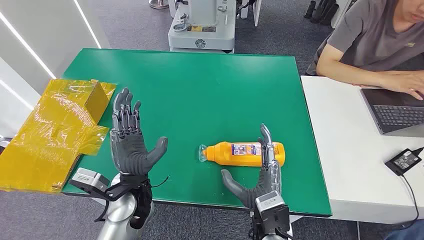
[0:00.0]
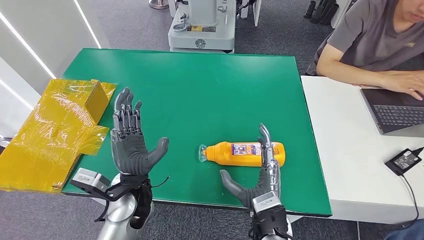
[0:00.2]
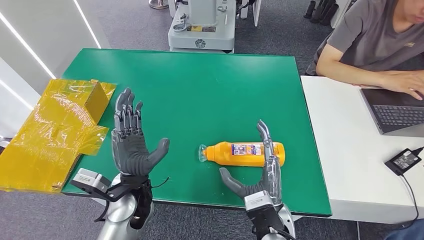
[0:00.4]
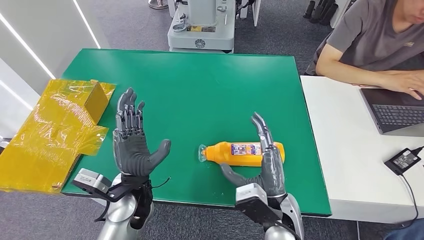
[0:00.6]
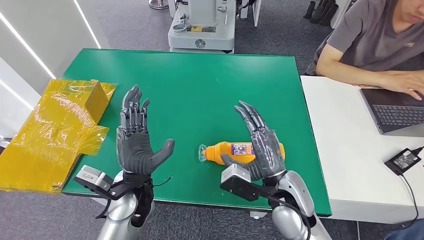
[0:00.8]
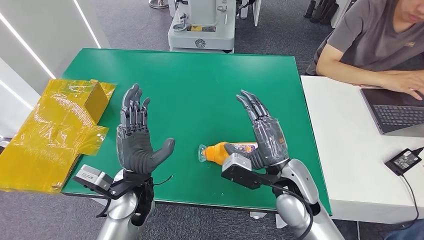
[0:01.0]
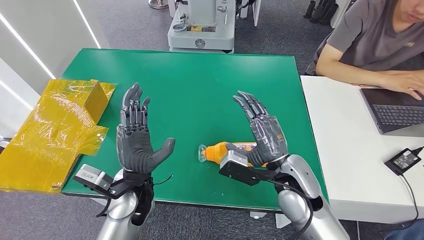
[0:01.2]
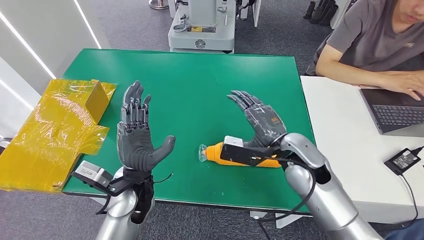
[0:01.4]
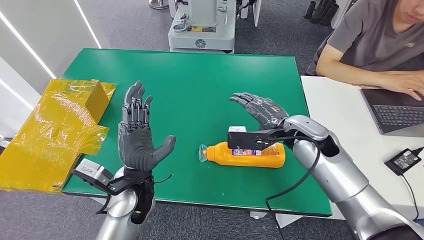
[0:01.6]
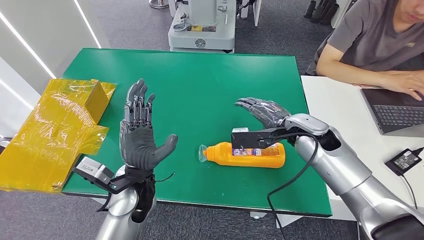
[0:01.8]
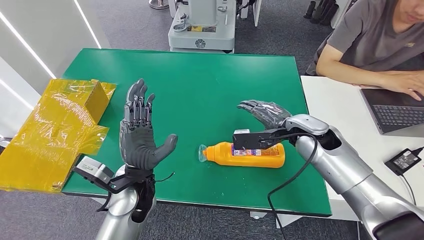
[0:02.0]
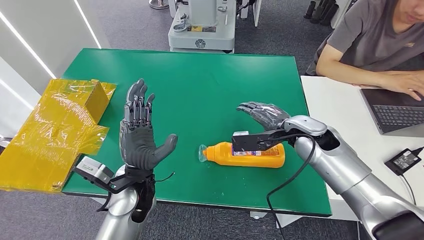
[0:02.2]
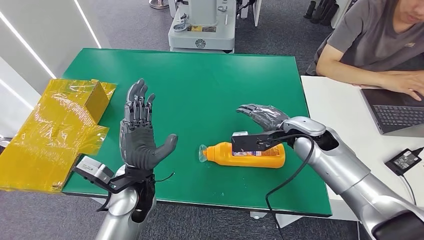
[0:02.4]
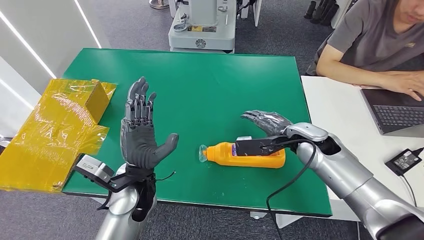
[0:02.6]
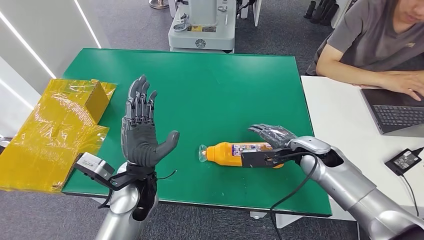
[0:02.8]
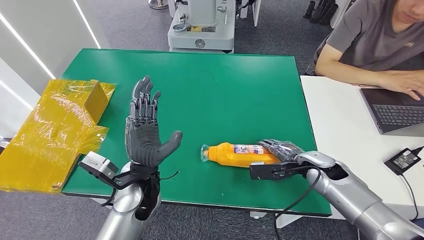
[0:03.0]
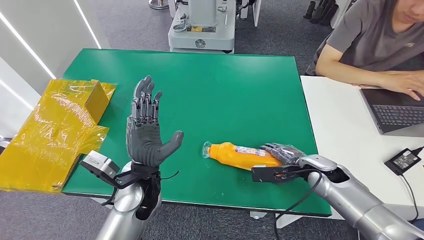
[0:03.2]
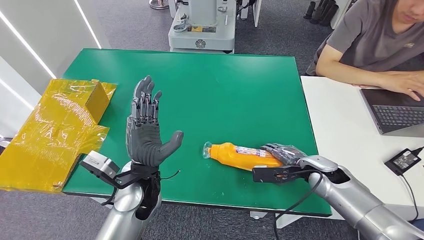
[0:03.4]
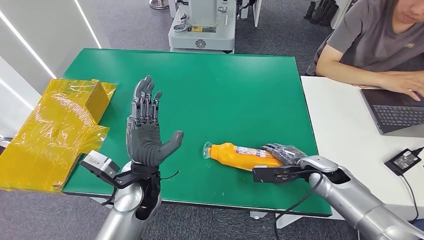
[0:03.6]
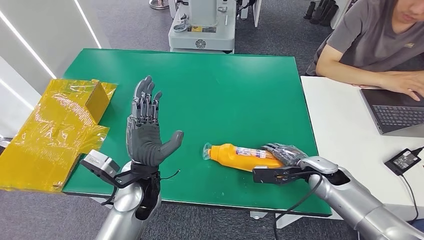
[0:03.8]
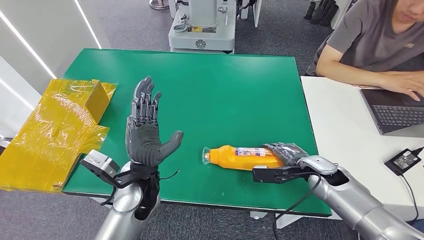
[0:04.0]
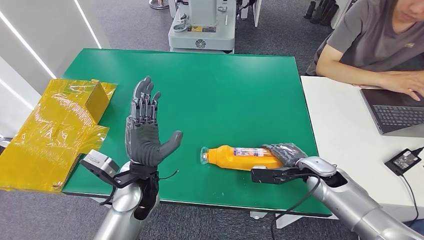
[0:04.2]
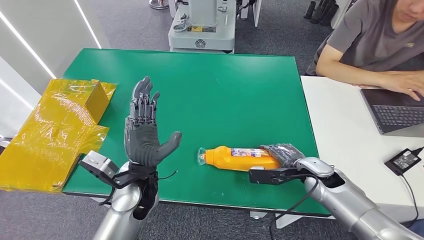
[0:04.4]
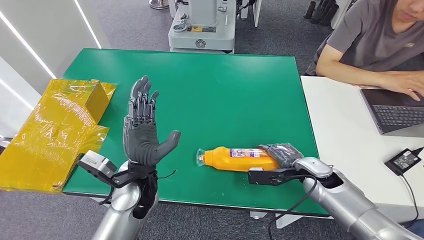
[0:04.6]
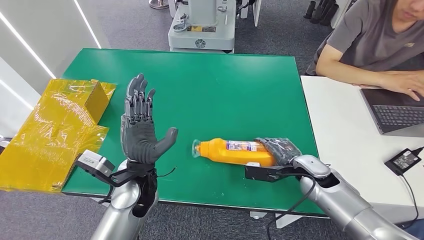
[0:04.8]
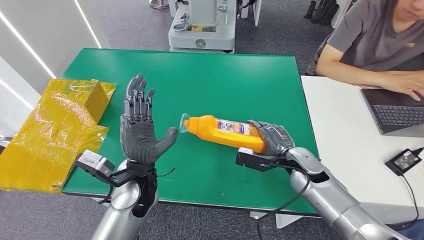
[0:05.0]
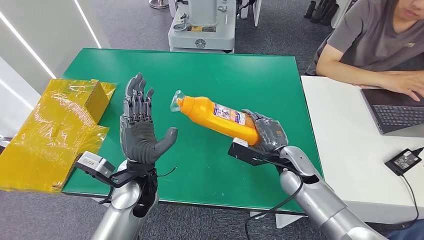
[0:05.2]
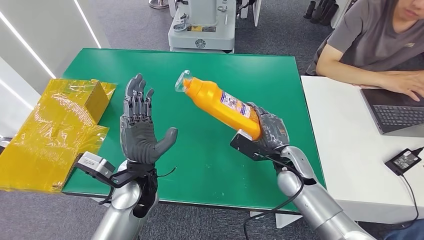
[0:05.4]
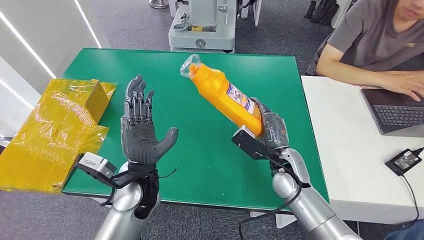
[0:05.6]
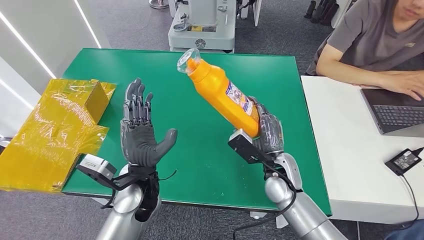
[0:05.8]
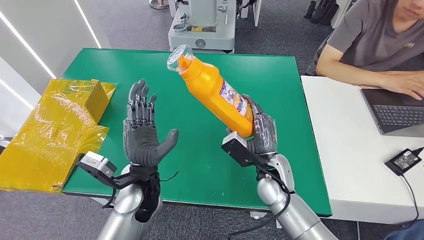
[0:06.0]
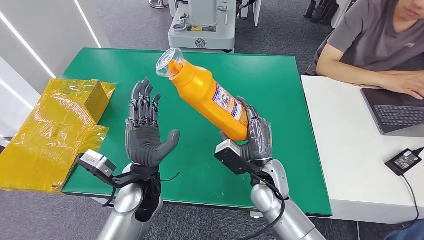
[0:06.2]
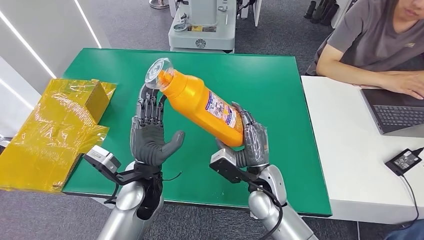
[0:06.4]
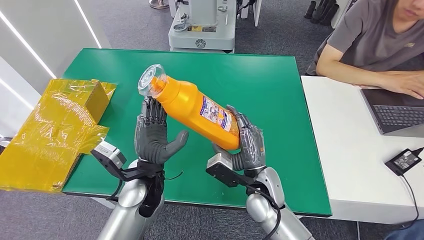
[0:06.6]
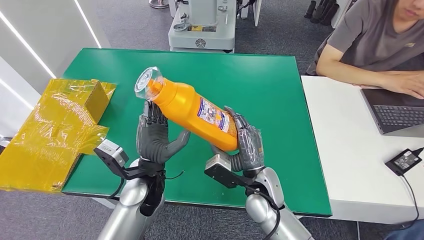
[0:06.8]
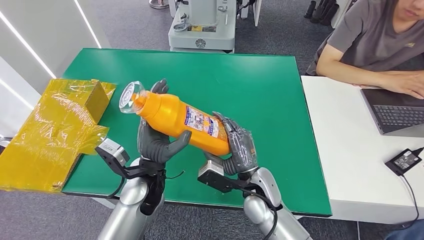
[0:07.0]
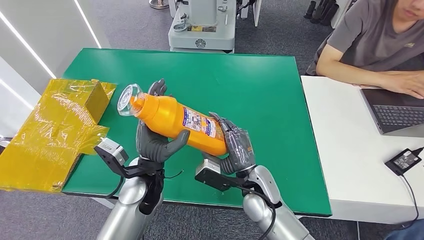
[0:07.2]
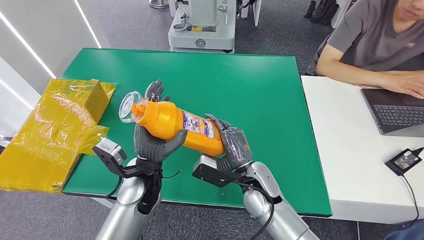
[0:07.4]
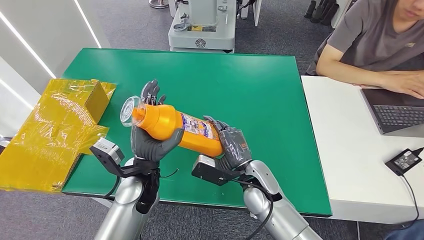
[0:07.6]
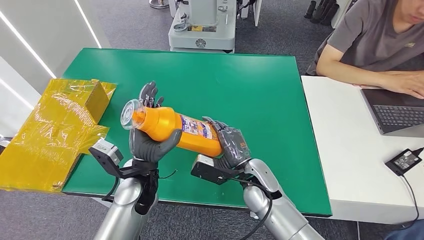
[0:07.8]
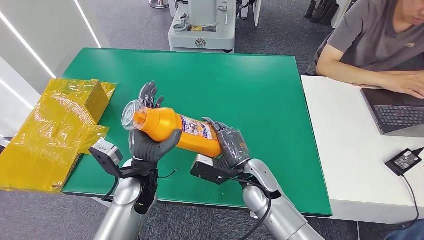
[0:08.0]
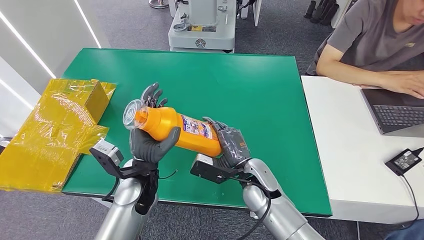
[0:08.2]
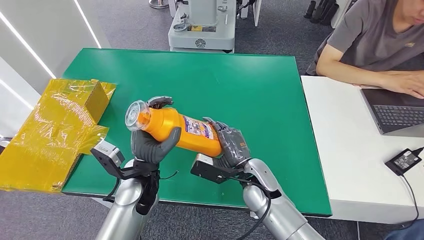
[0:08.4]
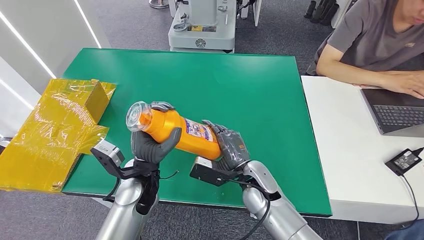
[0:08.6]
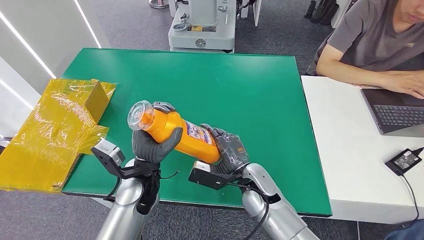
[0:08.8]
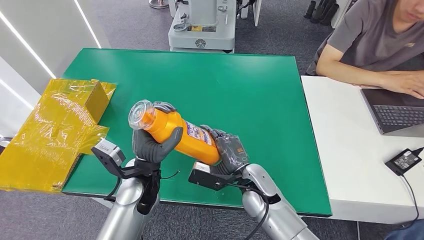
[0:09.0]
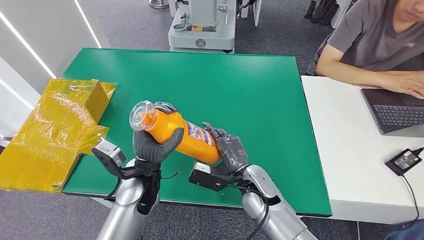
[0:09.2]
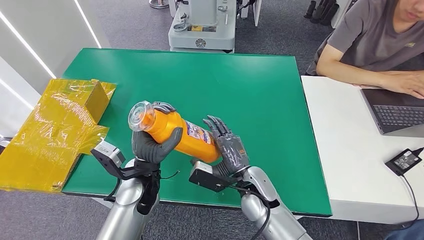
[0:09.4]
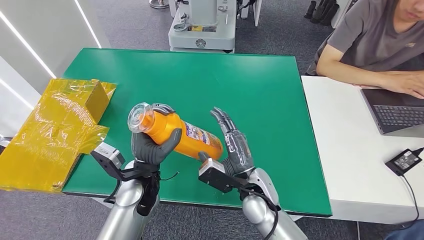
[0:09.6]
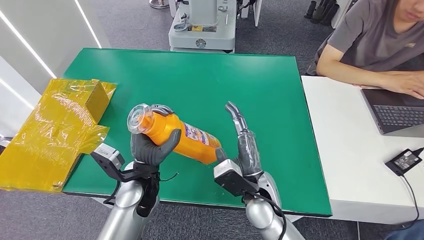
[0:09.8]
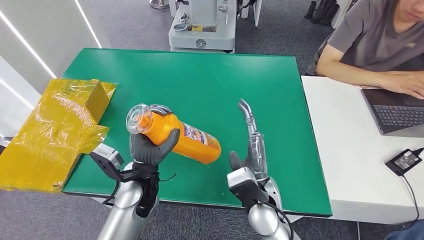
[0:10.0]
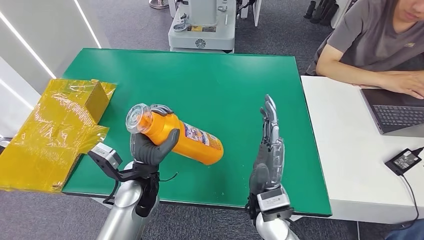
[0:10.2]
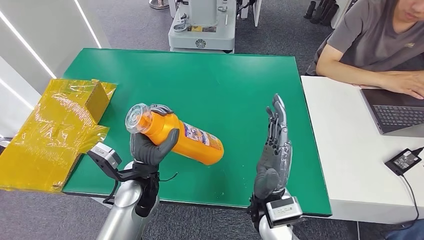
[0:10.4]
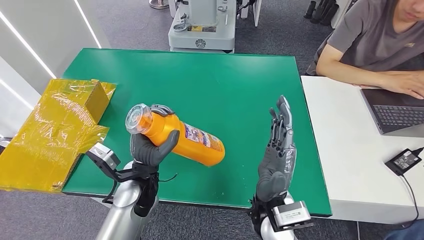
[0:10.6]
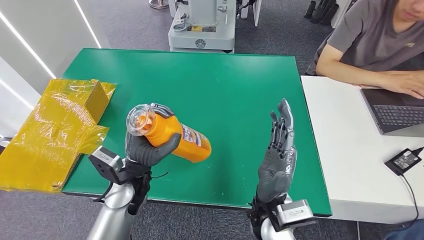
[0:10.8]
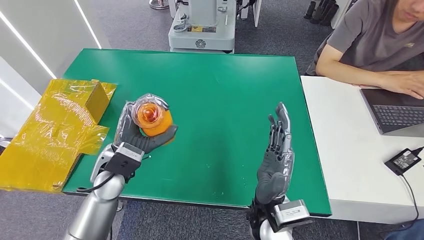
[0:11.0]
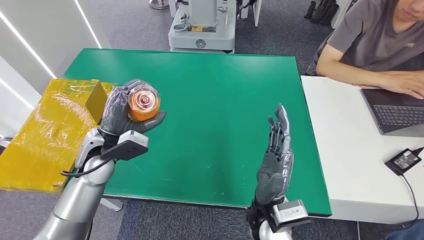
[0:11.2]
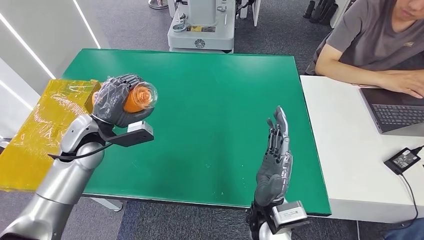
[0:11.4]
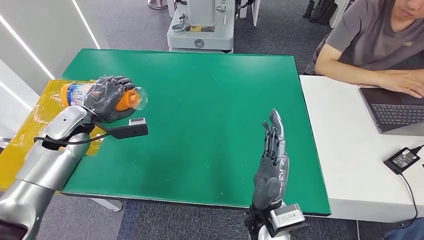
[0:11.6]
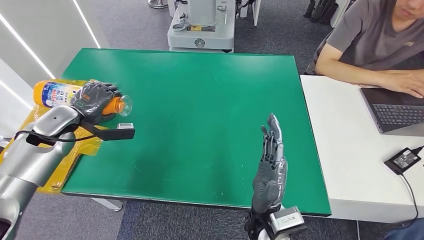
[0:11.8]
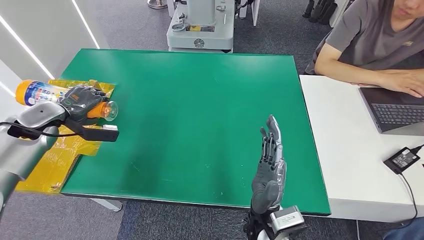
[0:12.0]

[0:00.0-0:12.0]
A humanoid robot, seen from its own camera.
Step, 0:00.0 to 0:05.6: Pick up the bottle from the table.
0:01.6 to 0:03.0: The right hand moves downward and to the right, some 15 cm.
0:03.0 to 0:04.4: The hands stay close to where they were, moving slightly.
0:04.4 to 0:06.0: The right hand shifts approximately 15 cm to the left.
0:07.6 to 0:09.0: The hands move only a little.
0:09.0 to 0:10.4: The right hand travels backward and upward by approximately 10 cm.

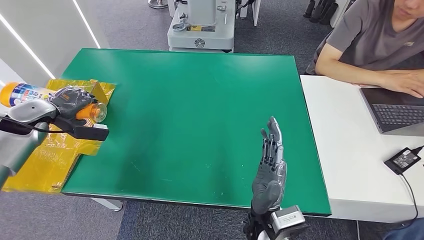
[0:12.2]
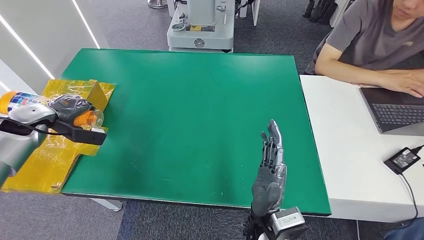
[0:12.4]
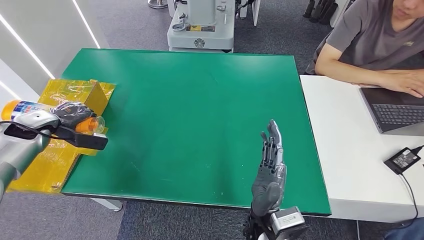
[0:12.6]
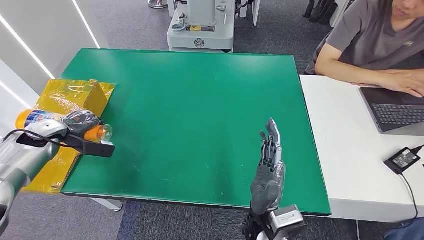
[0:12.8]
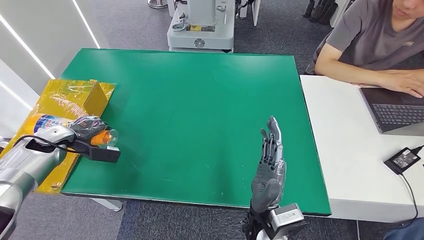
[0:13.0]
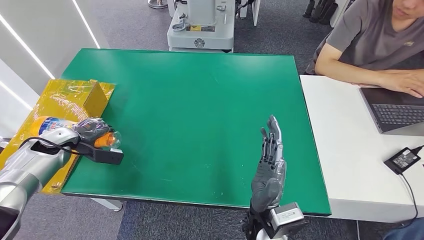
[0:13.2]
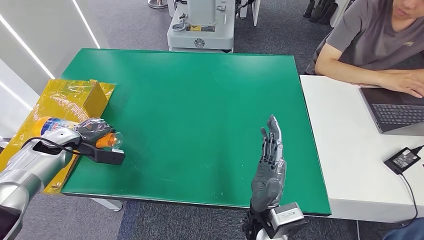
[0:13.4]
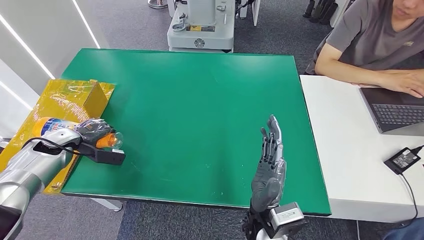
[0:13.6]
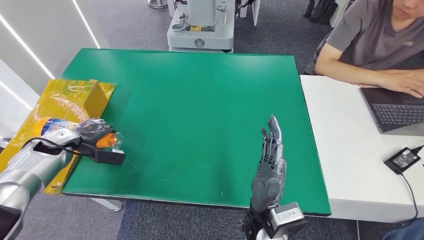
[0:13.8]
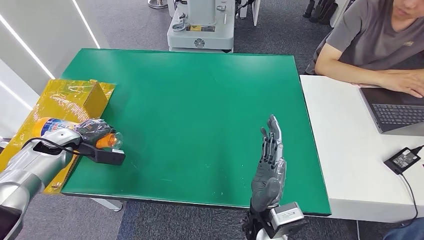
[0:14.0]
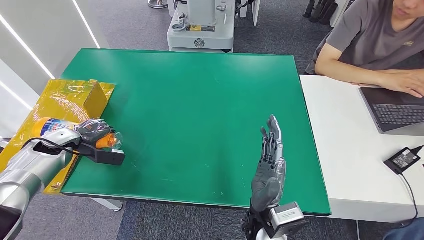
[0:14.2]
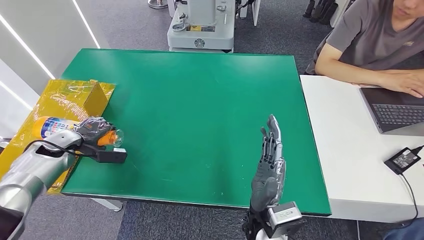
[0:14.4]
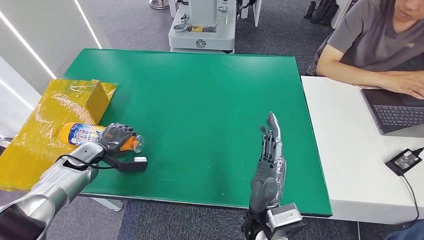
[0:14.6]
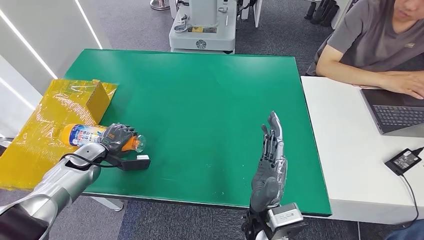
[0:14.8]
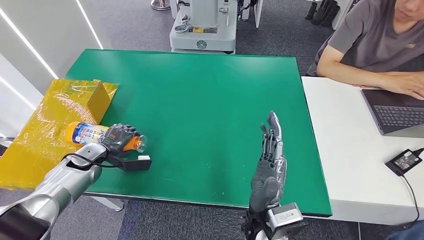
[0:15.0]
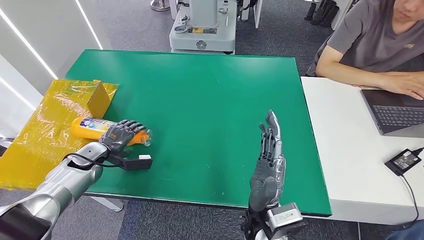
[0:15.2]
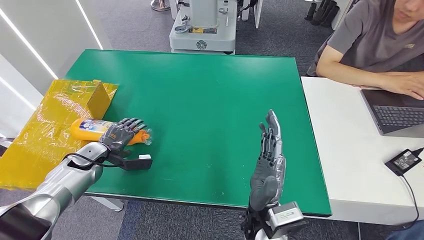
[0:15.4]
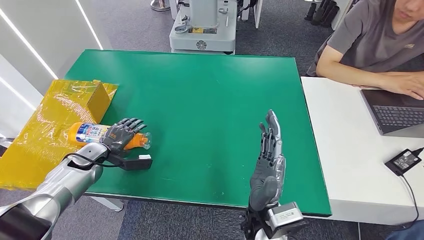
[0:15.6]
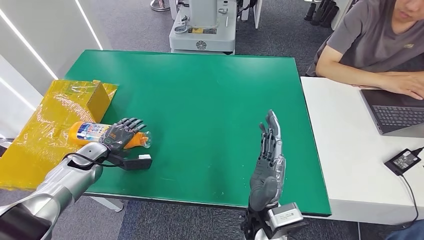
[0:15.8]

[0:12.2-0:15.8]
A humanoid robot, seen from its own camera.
Step, 0:12.2 to 0:15.8: Turn the bottle to the front side.
0:12.2 to 0:14.0: The left hand is displaced downward by about 10 cm.
0:14.0 to 0:15.8: The left hand heads to the right and downward, covering approximately 10 cm.

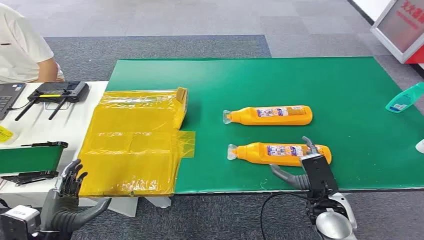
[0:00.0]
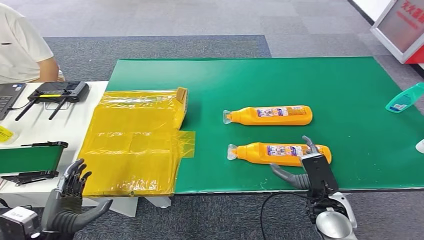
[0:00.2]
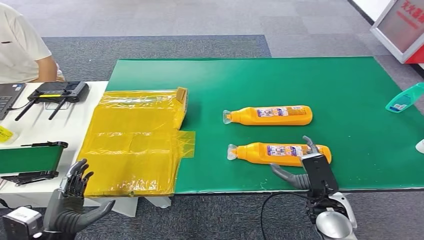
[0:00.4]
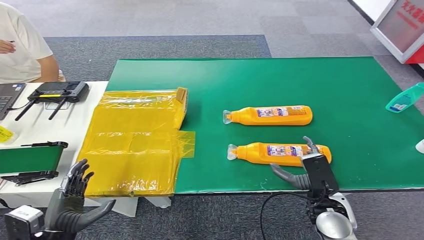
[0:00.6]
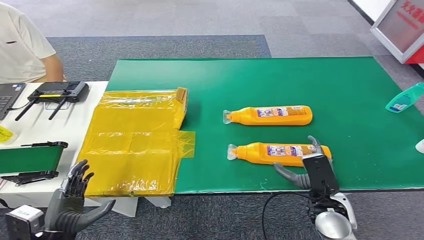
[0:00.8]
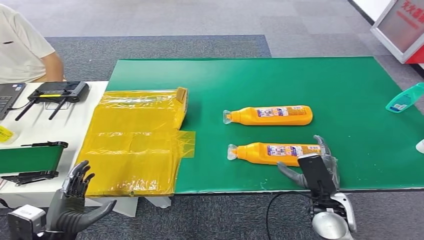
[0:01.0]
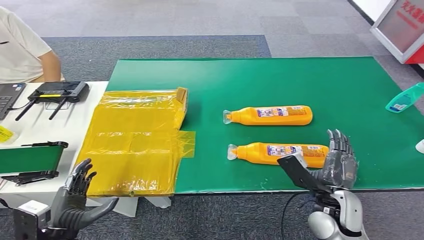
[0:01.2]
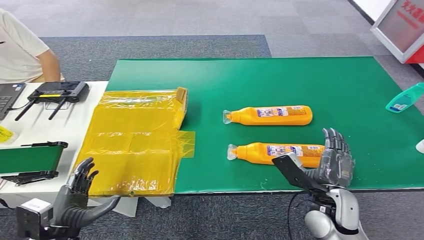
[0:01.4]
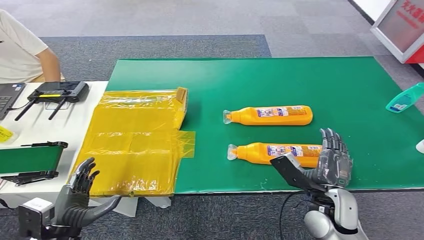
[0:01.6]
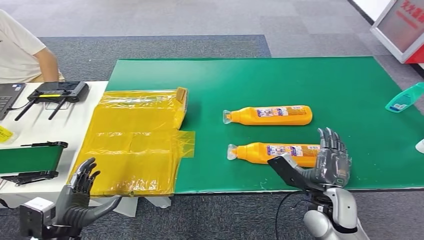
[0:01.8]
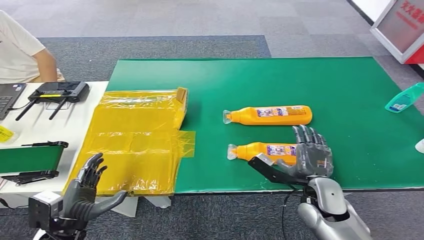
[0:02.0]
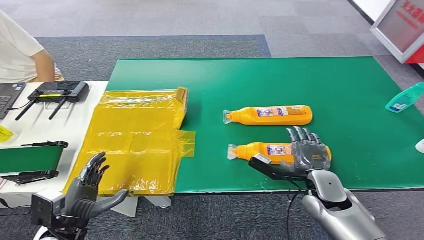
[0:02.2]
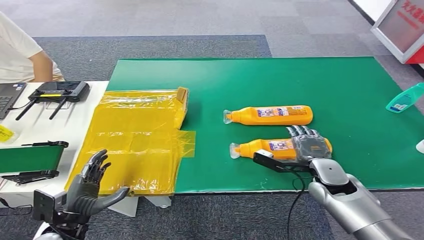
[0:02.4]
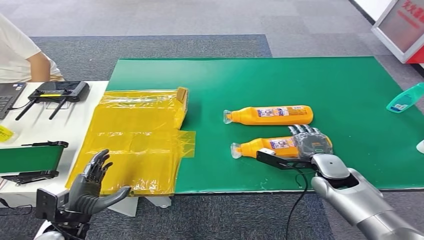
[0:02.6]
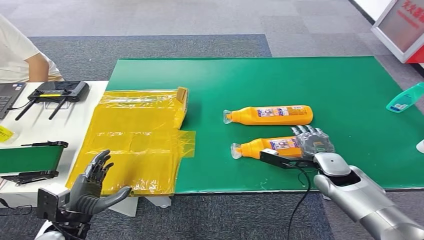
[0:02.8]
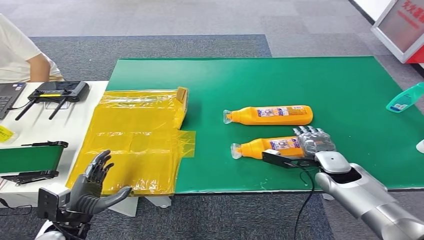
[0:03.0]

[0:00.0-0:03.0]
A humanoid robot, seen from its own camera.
0:01.6 to 0:03.0: The right hand goes some 10 cm forward.
